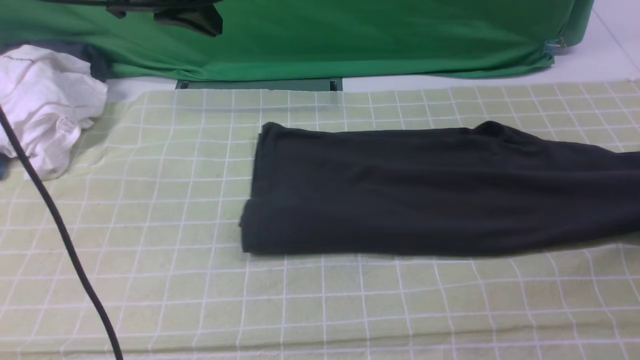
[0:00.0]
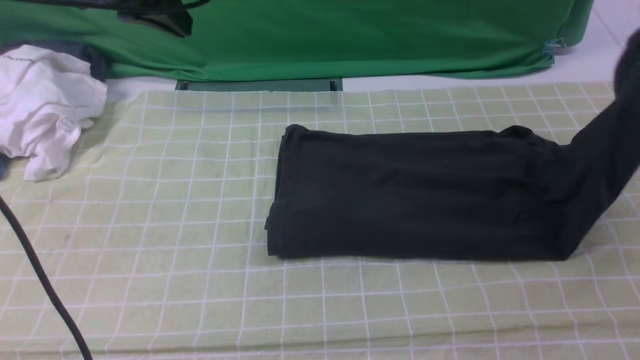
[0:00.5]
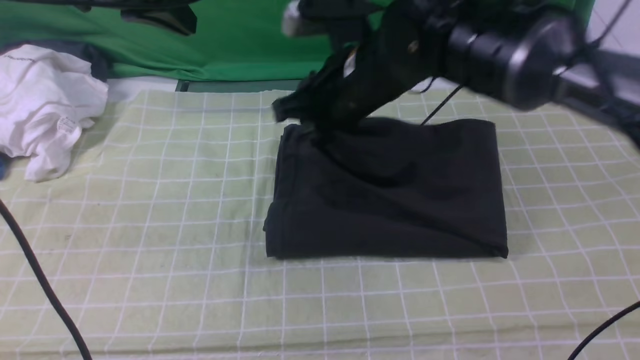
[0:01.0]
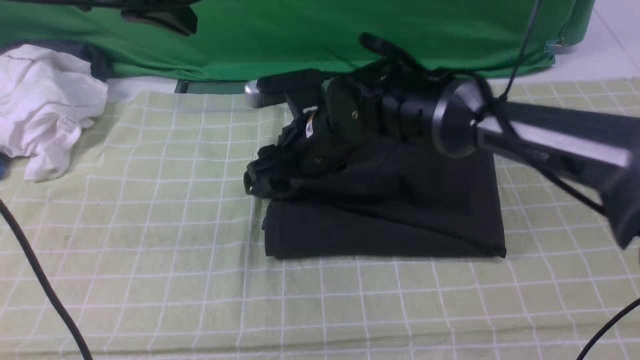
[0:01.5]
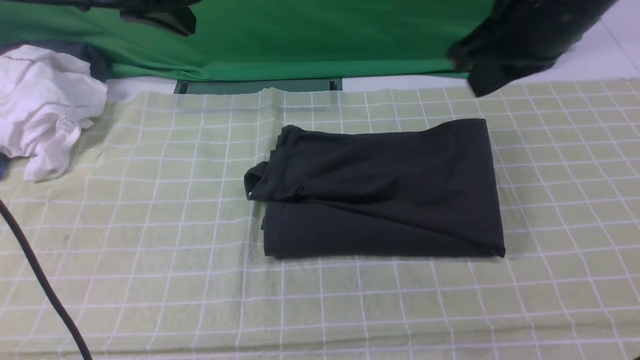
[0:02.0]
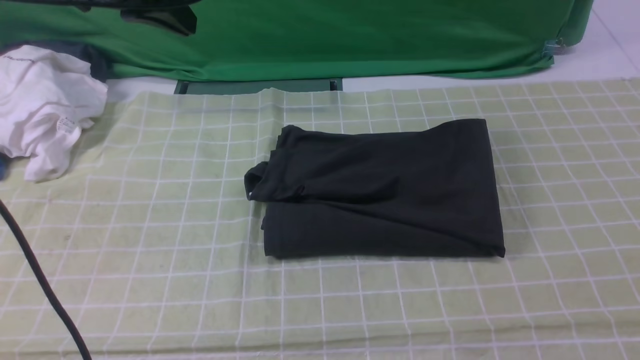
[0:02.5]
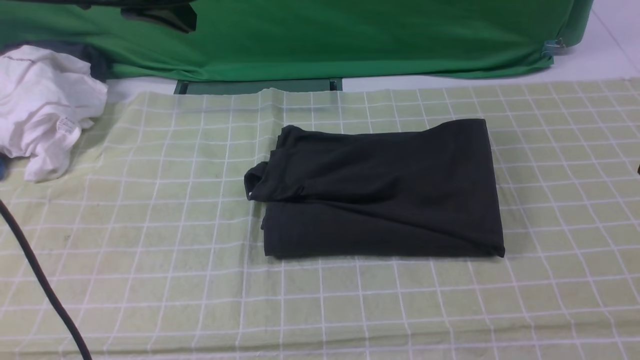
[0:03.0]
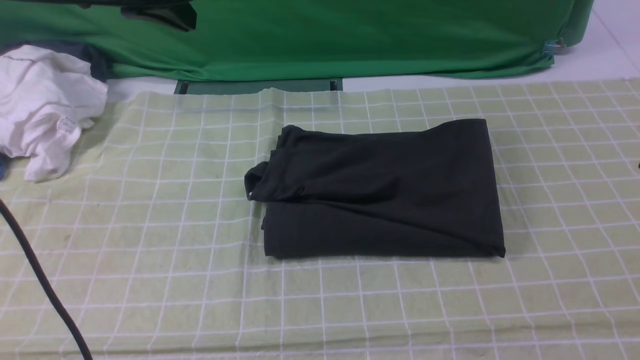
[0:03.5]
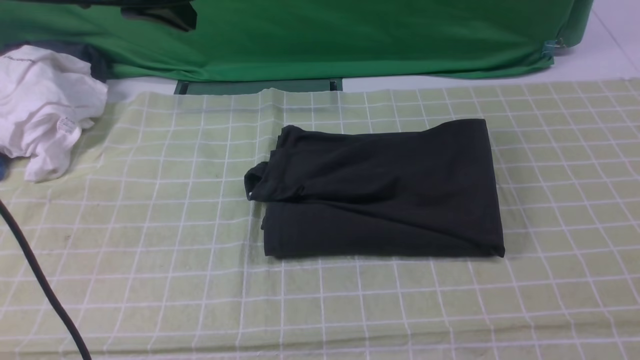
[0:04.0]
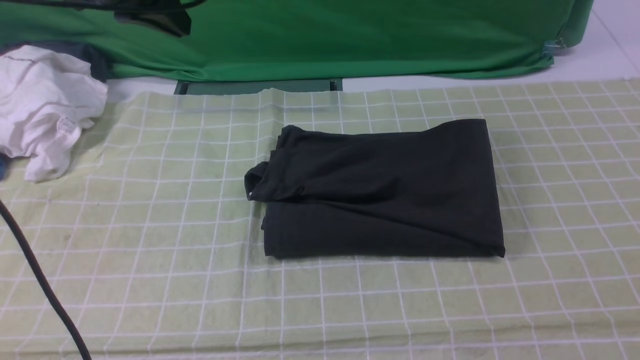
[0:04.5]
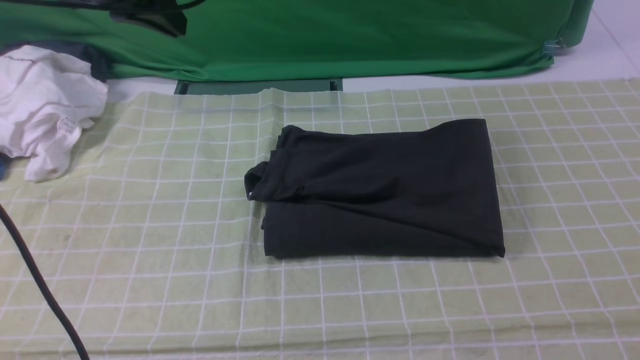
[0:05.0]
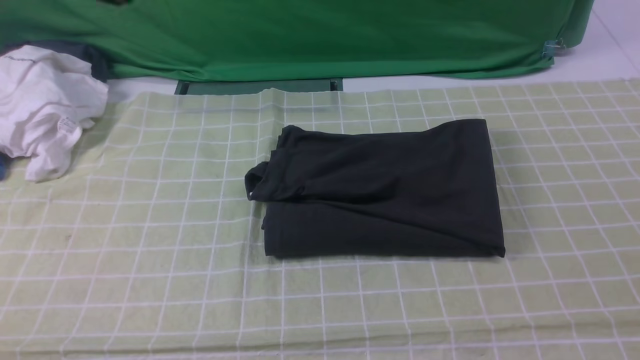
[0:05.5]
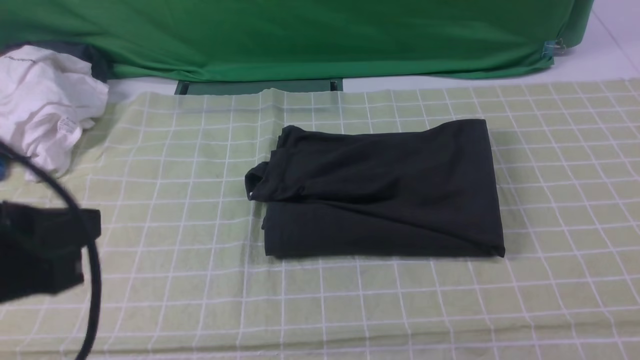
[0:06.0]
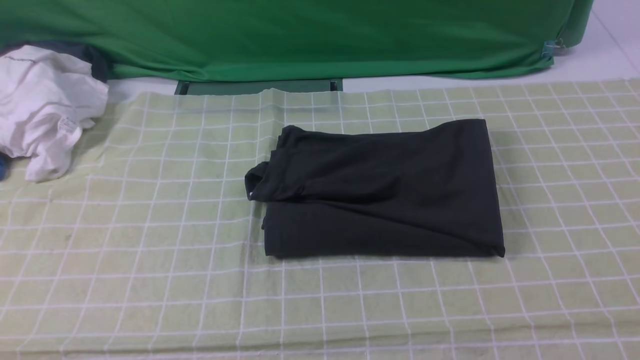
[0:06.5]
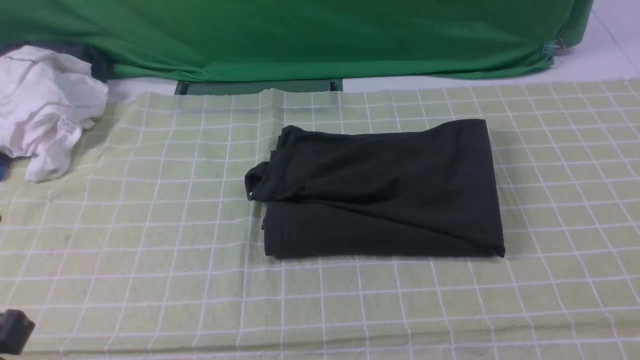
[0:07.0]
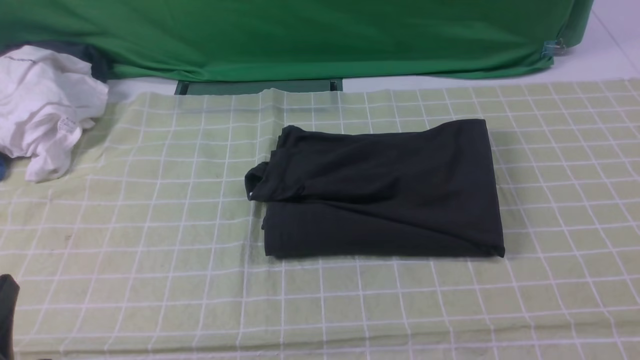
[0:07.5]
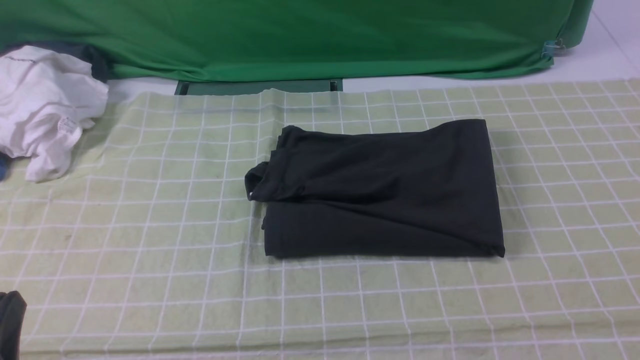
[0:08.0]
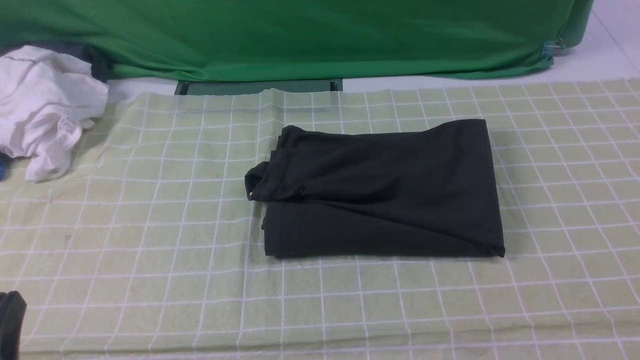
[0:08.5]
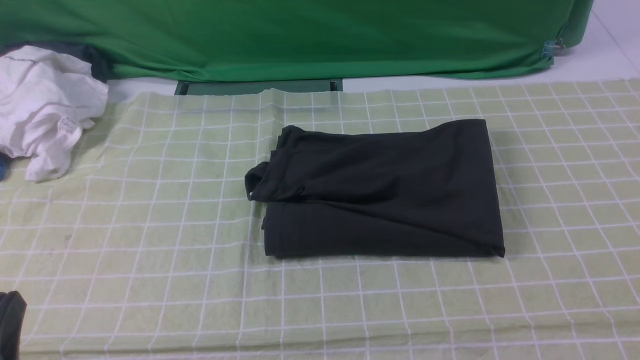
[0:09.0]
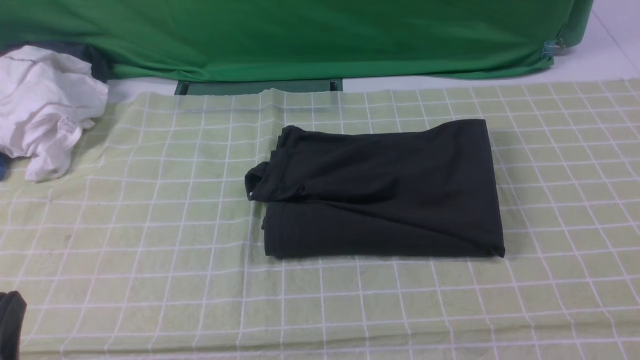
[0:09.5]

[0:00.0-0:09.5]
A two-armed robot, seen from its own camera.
Step, 0:00.0 to 0:01.5: use the right arm to drag the right edge of the fabric to the left and folds it over the left edge.
0:00.0 to 0:02.0: The right gripper heads to the left and upward, covering some 35 cm, and opens, then closes again.
0:02.0 to 0:04.0: The right gripper shifts some 30 cm backward, to the right and downward.
0:04.0 to 0:05.5: The left gripper goes about 15 cm backward.
